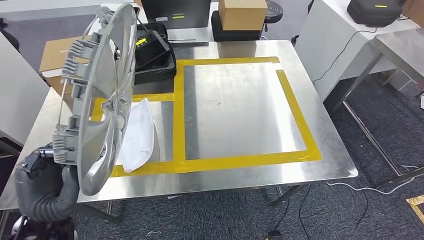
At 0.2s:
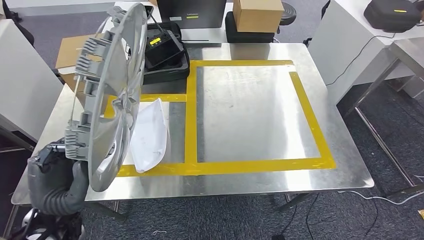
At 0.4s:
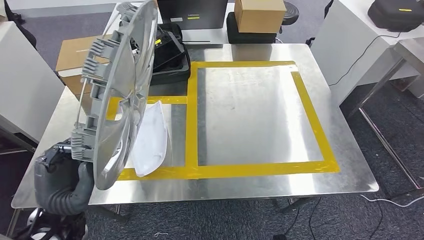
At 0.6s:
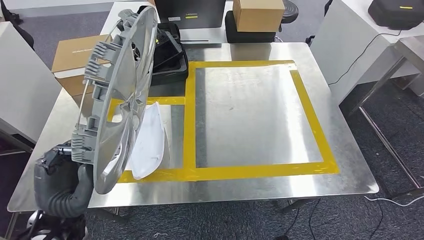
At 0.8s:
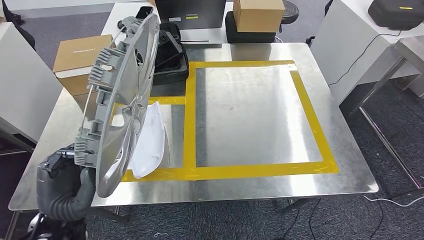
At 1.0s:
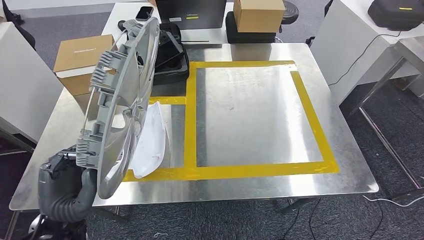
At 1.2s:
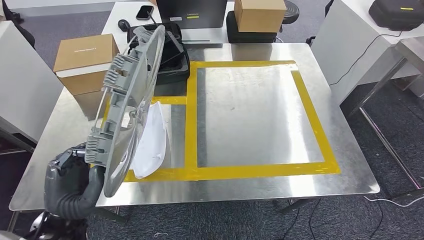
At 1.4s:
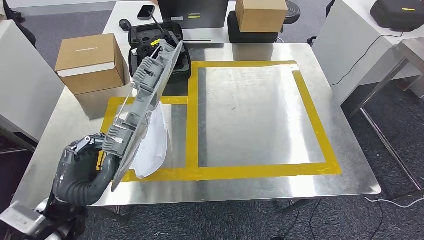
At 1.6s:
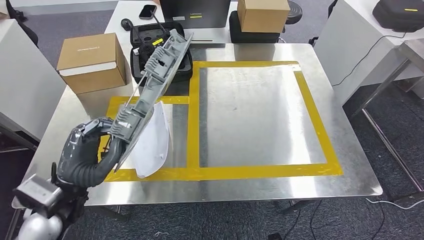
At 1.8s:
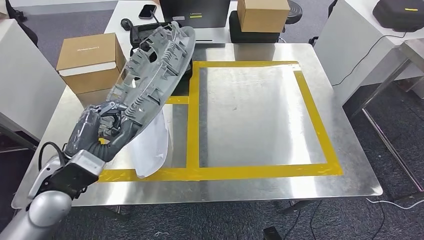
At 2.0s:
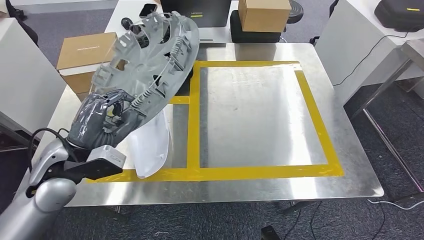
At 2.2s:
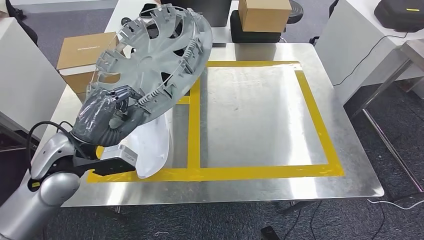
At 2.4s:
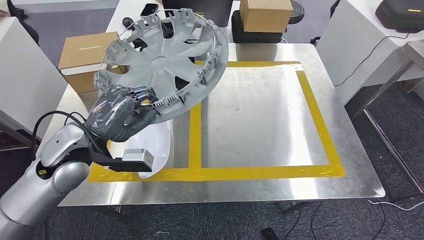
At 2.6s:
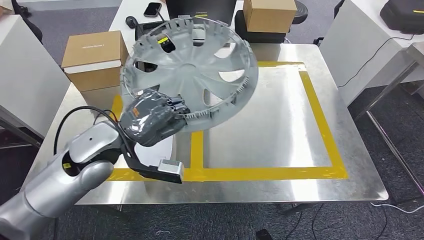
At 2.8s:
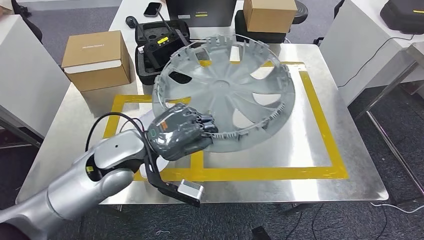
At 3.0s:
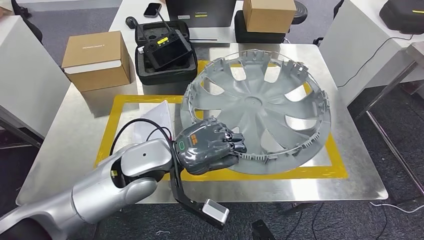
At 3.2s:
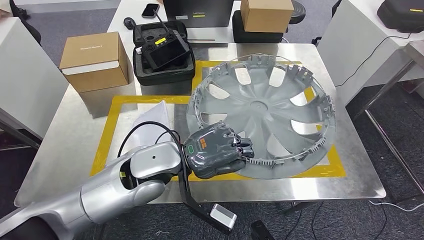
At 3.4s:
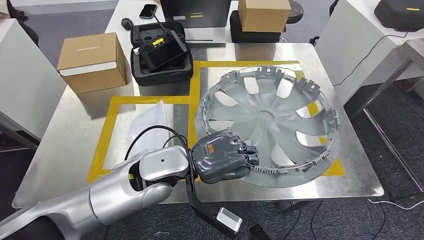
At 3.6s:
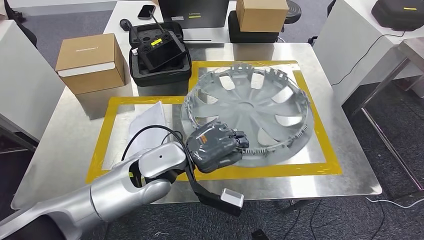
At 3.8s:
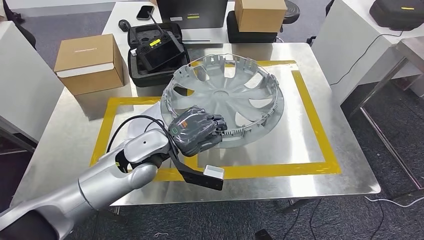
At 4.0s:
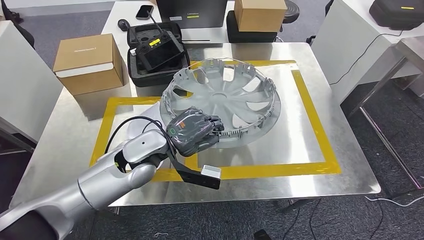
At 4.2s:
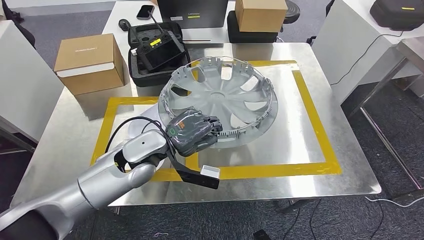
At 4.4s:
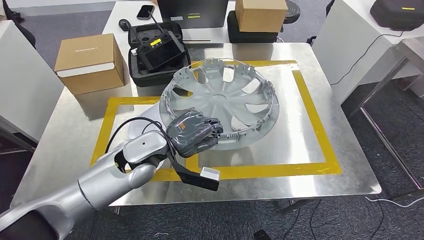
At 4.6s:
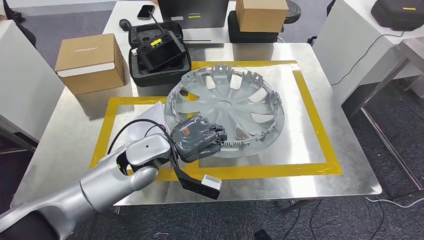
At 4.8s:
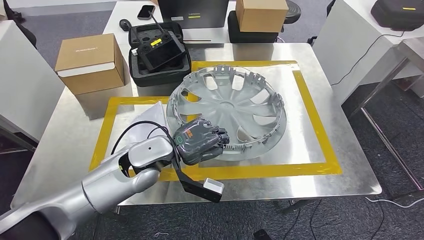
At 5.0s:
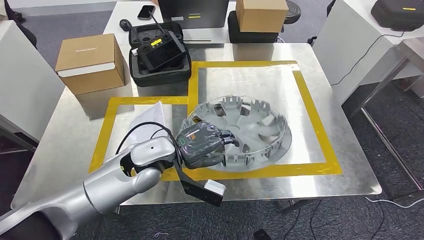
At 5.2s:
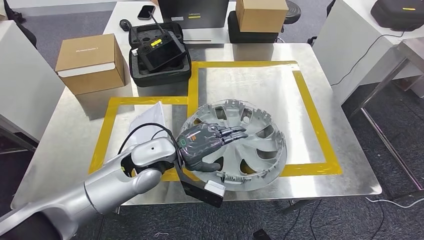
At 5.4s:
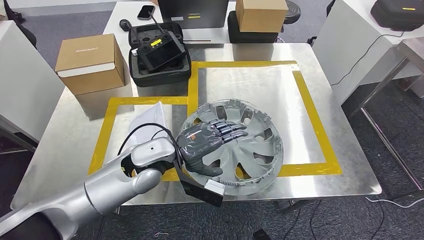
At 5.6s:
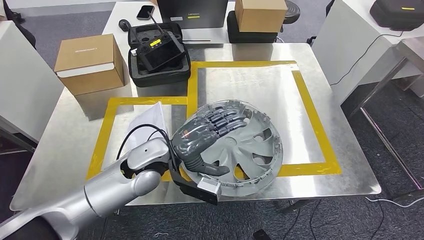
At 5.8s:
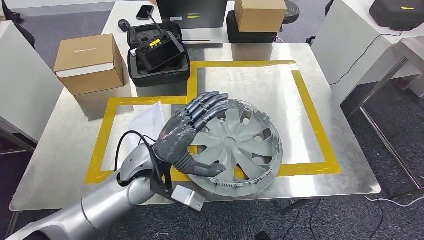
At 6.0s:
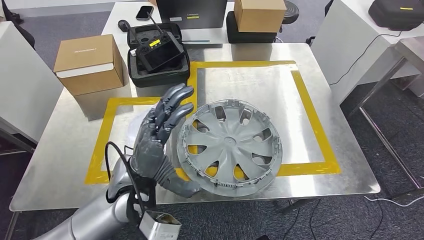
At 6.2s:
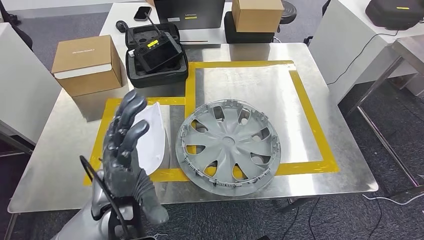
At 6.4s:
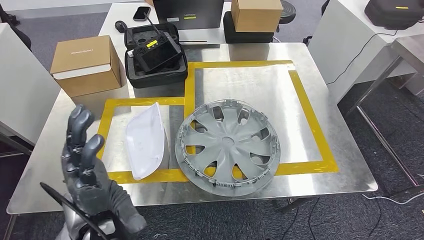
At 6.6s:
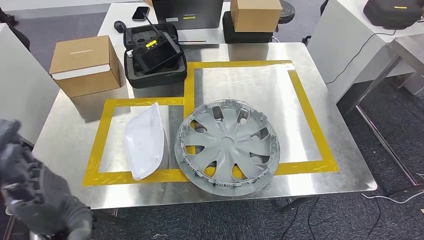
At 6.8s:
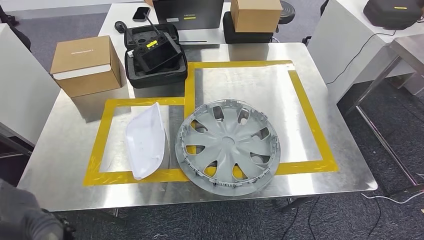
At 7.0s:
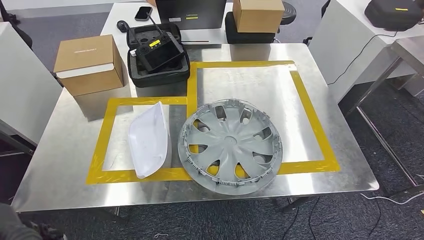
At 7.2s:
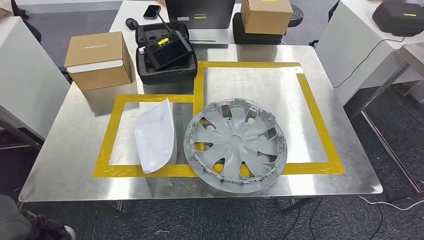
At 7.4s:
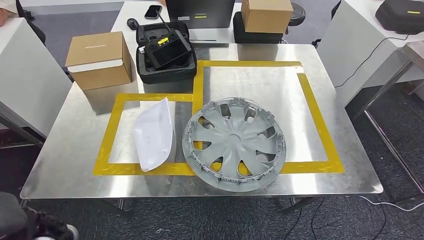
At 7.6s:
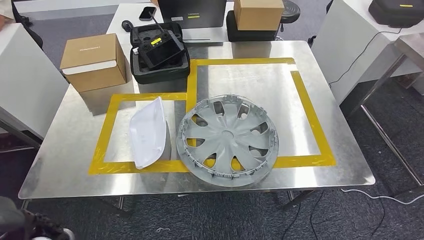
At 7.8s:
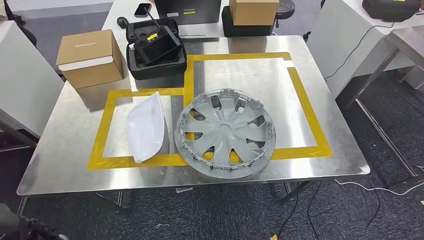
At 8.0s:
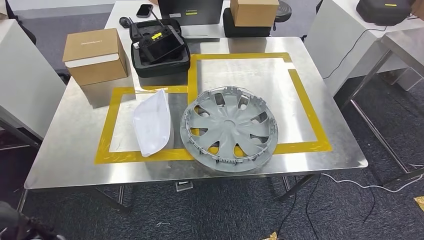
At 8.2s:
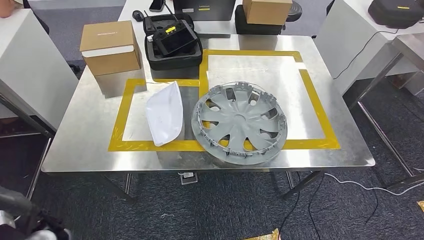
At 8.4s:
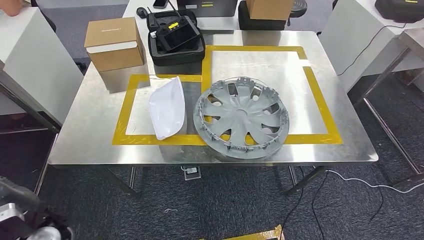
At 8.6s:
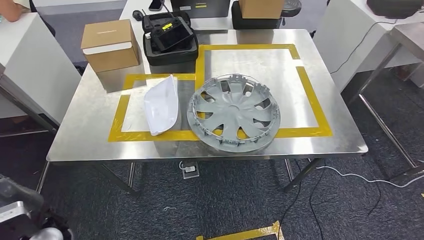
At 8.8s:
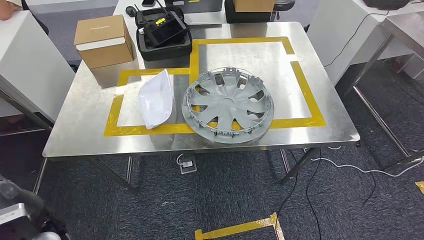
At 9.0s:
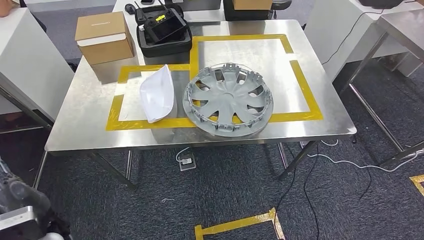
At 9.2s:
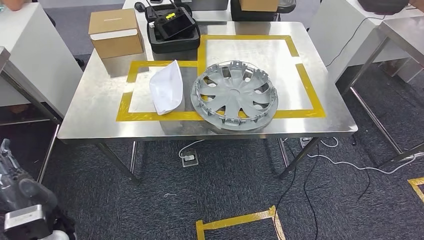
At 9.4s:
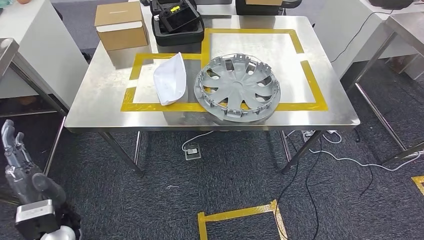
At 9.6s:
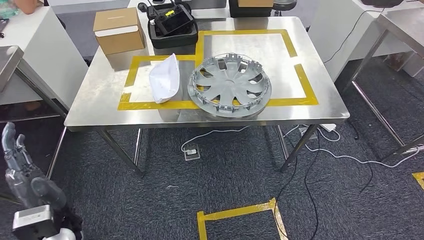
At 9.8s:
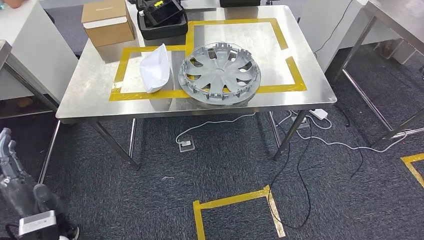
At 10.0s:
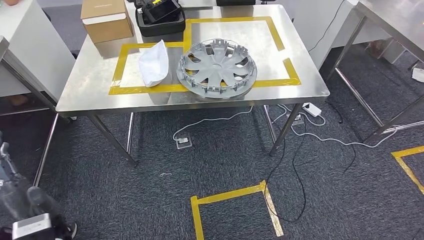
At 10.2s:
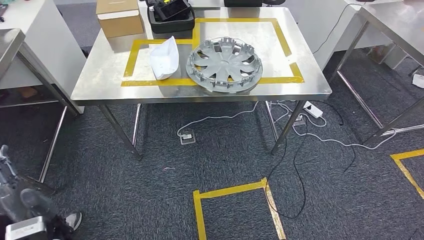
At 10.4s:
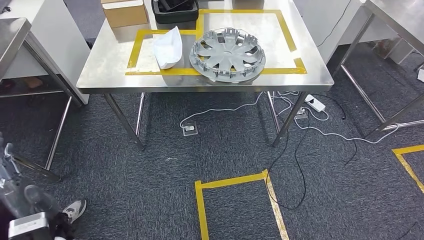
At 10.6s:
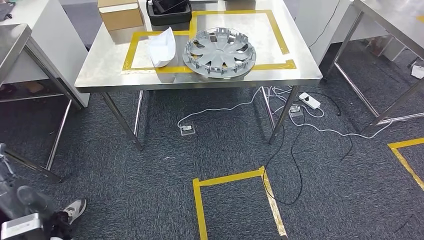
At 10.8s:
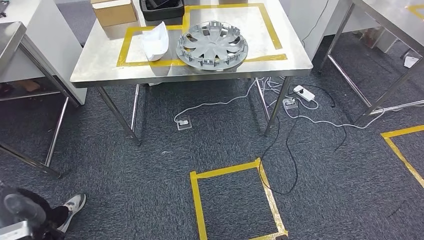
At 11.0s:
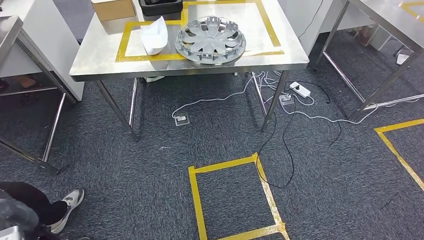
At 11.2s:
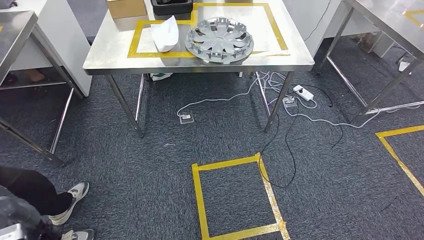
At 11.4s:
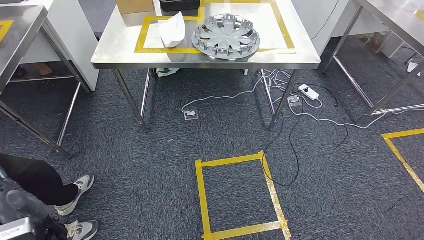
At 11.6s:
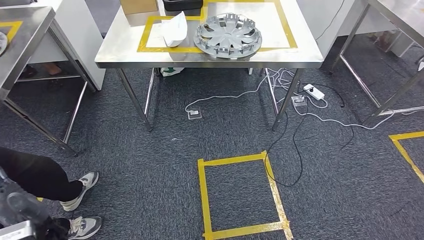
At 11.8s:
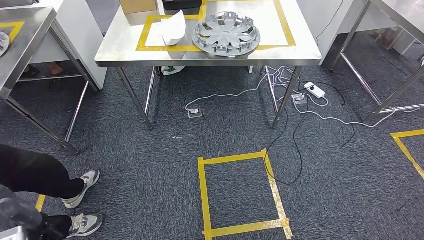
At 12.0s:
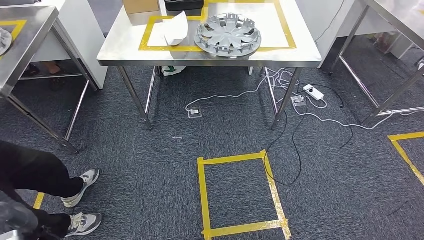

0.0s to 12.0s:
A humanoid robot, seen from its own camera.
Step, 0.0s to 8.4s: Insert the small parts into the corresponding holes on the workbench.

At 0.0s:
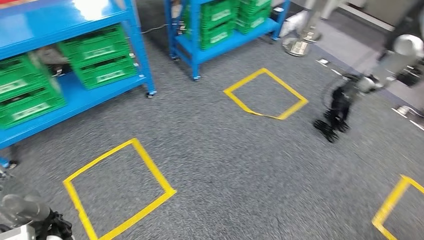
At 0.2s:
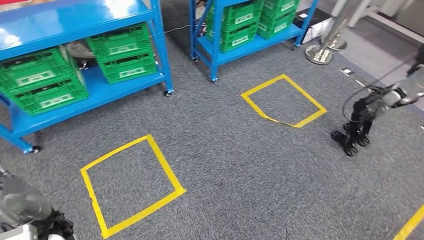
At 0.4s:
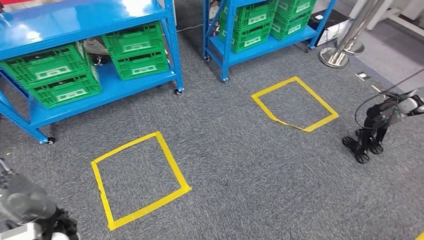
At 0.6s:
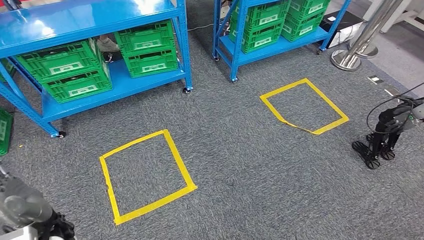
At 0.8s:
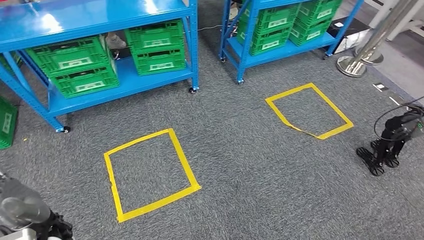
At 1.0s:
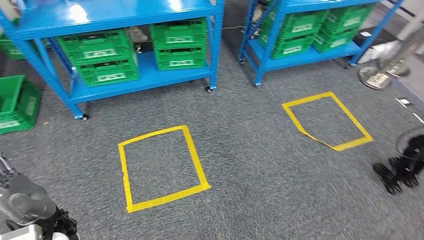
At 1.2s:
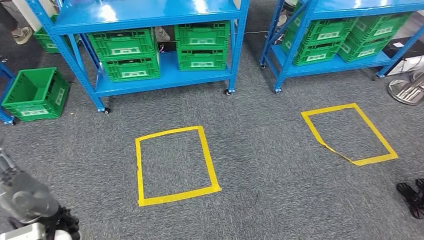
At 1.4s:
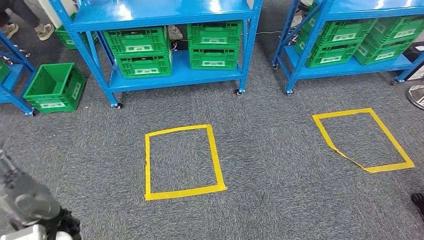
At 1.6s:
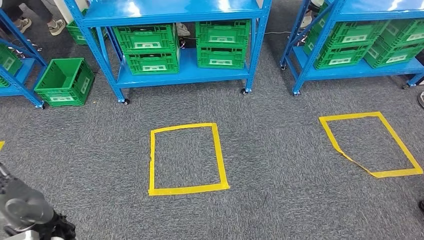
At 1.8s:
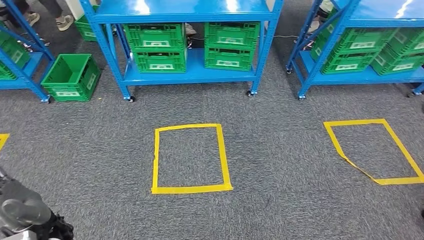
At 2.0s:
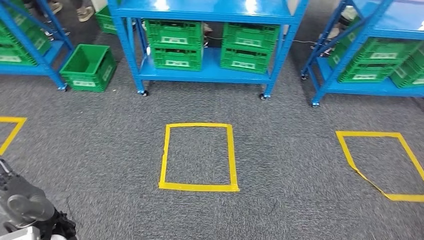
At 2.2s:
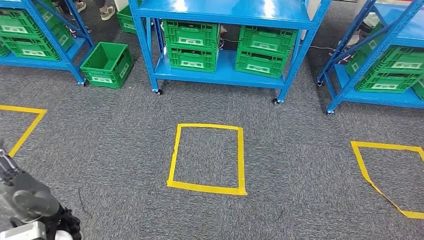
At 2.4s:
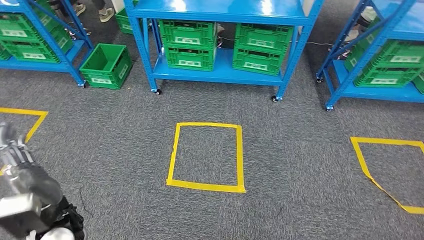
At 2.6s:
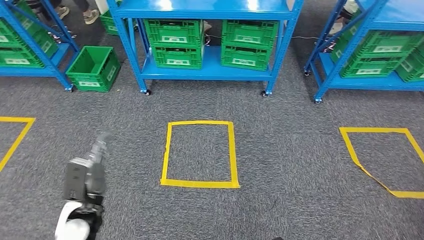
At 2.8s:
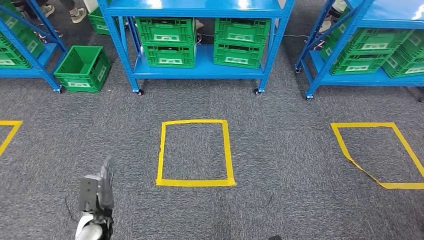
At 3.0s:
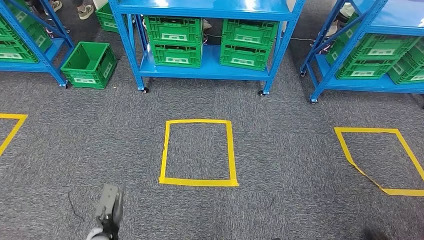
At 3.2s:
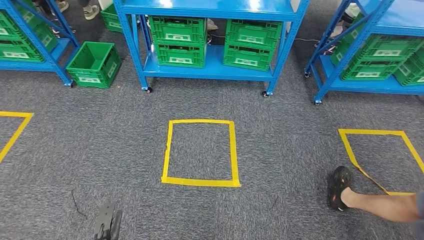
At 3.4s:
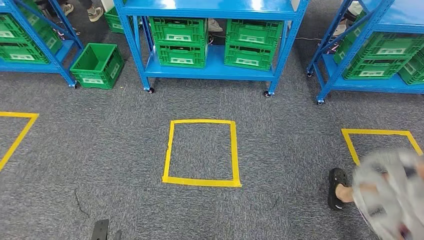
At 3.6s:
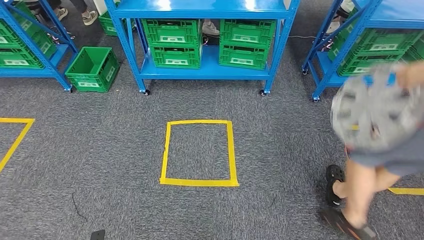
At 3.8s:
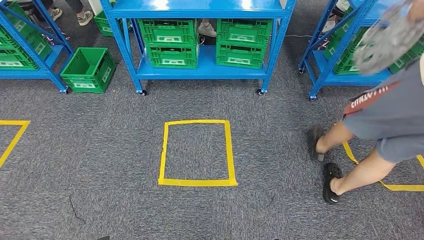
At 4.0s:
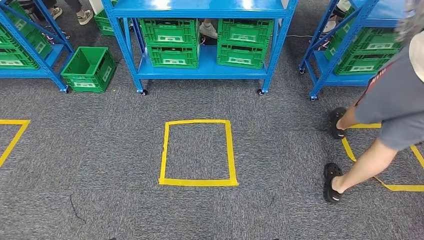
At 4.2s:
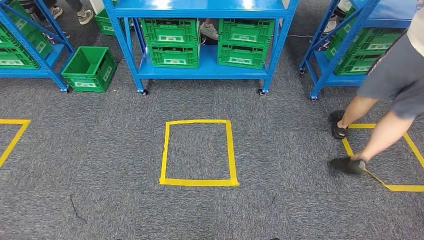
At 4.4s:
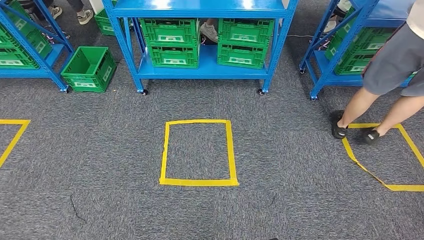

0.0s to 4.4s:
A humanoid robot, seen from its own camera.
Step, 0.0s to 4.4s: Move to the initial position of the workbench.

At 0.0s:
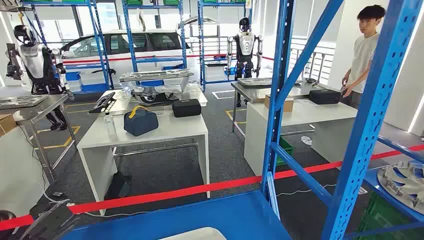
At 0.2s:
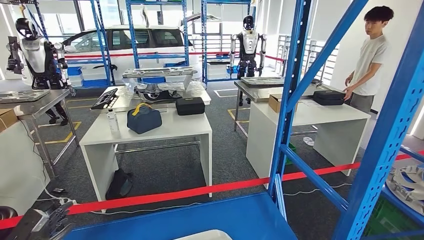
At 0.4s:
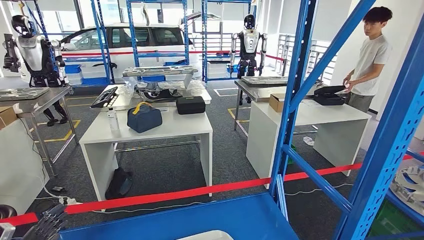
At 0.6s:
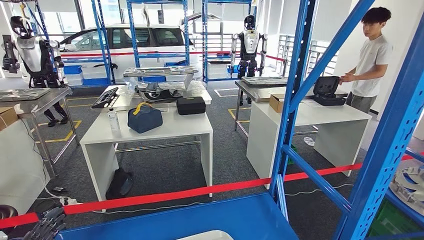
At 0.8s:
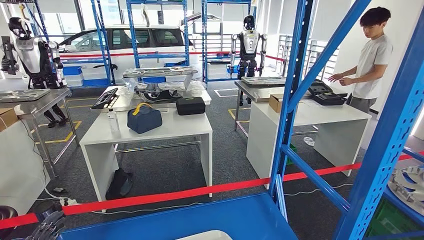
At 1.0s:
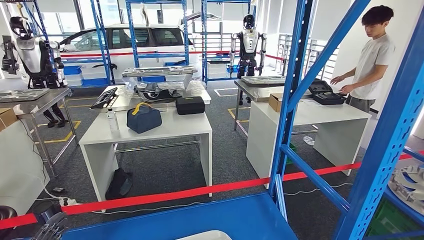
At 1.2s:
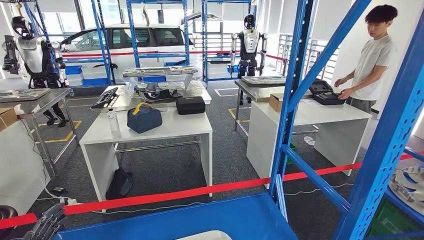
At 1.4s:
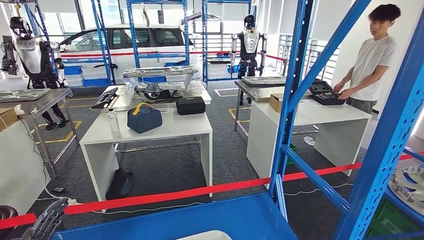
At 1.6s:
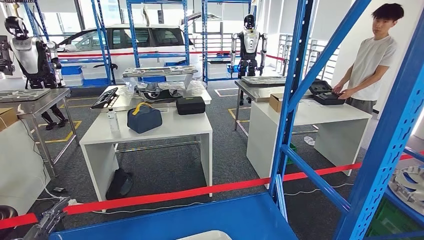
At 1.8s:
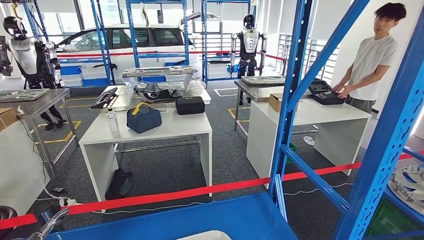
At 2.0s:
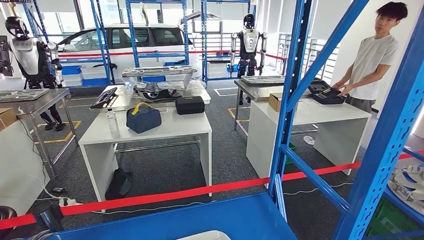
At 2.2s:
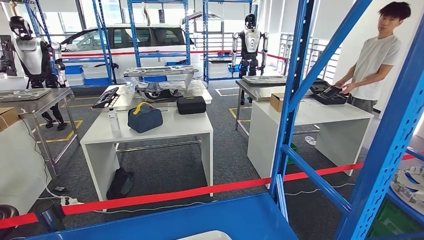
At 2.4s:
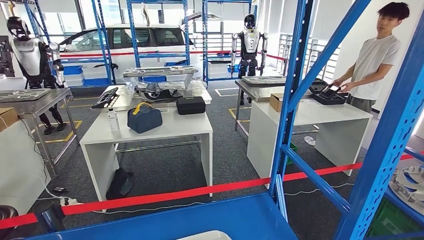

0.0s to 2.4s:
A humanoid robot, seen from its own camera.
1.2s to 2.4s: The left hand goes about 10 cm backward and to the left.
